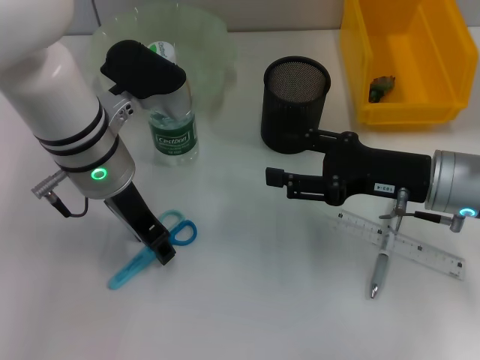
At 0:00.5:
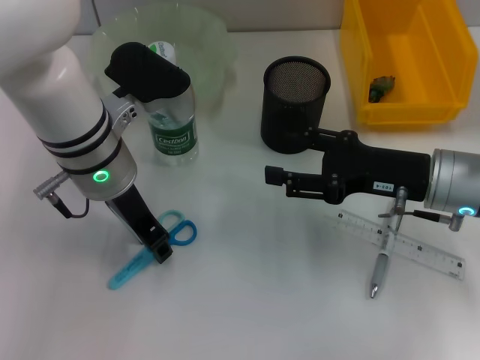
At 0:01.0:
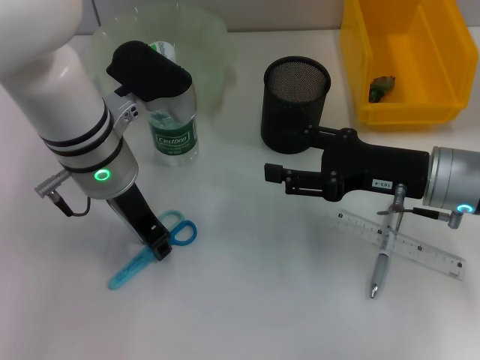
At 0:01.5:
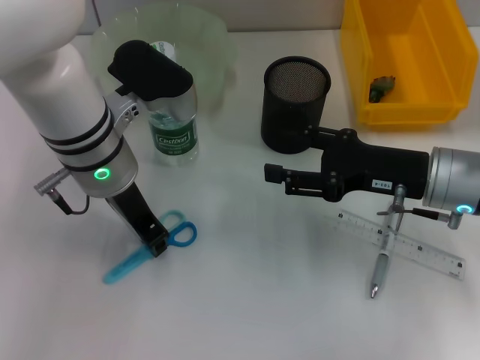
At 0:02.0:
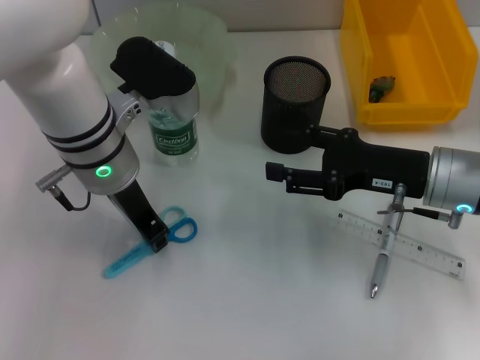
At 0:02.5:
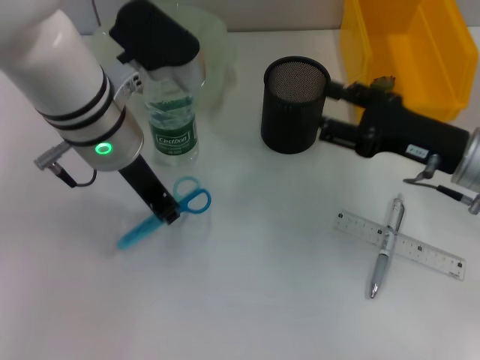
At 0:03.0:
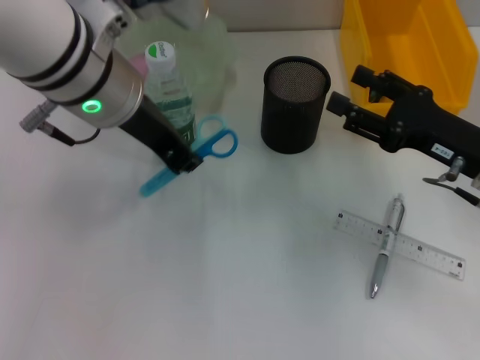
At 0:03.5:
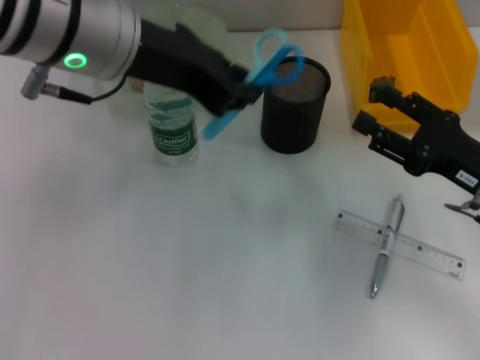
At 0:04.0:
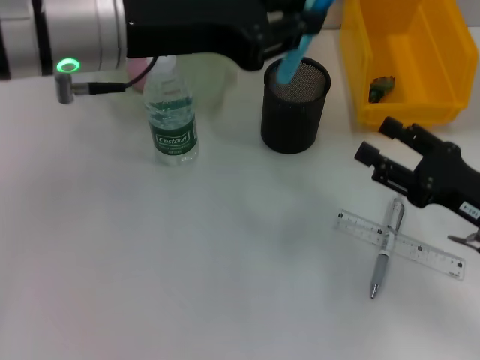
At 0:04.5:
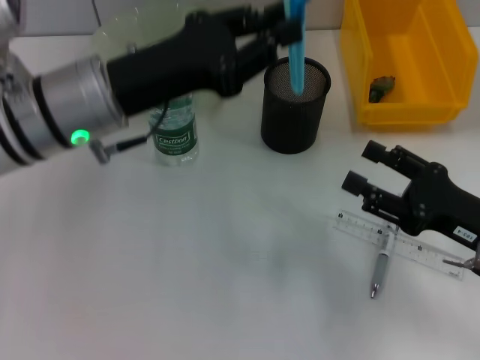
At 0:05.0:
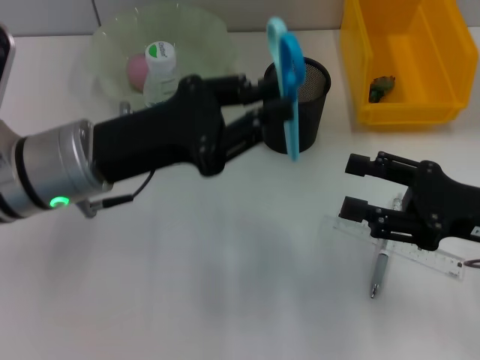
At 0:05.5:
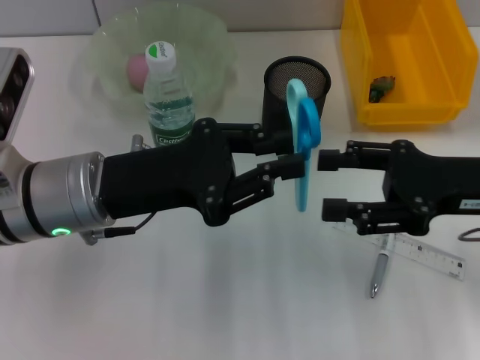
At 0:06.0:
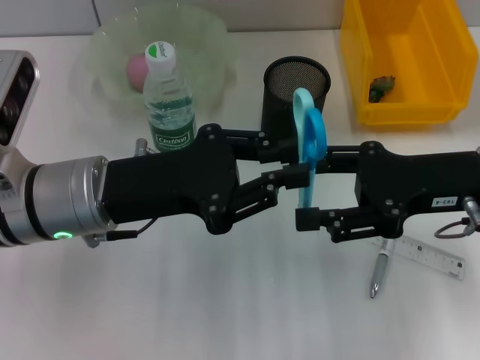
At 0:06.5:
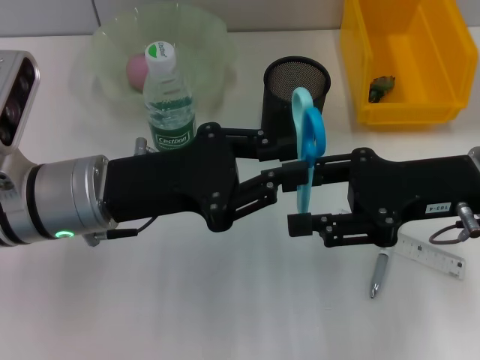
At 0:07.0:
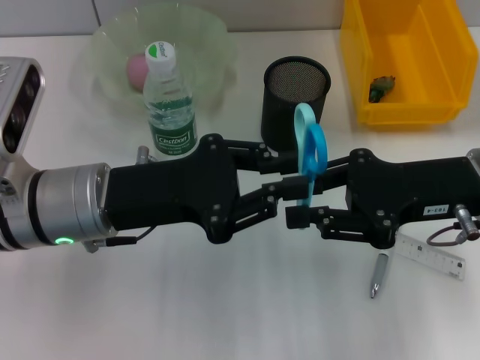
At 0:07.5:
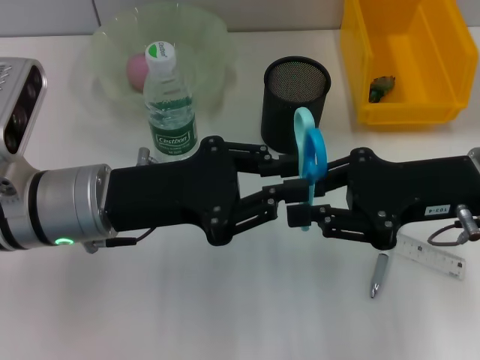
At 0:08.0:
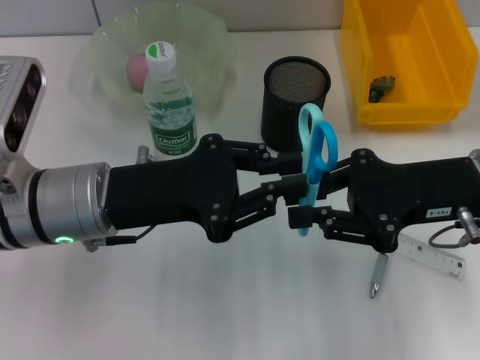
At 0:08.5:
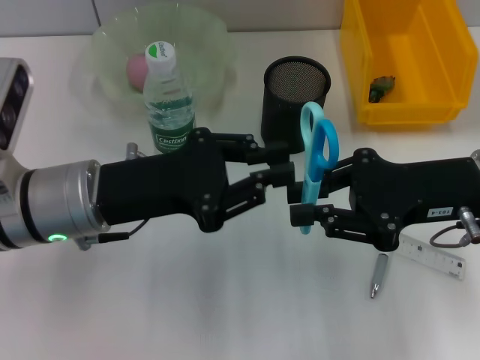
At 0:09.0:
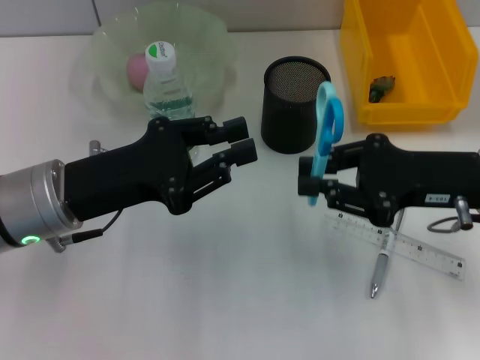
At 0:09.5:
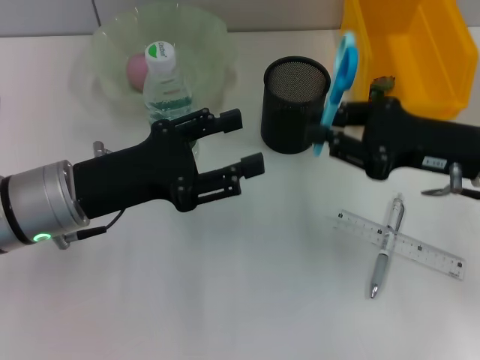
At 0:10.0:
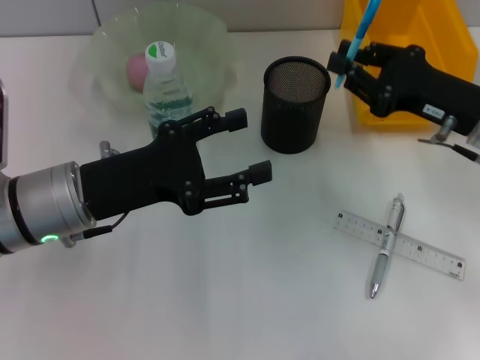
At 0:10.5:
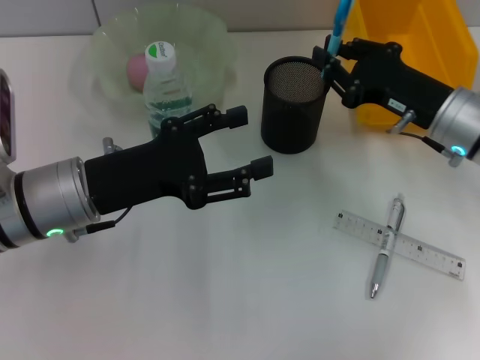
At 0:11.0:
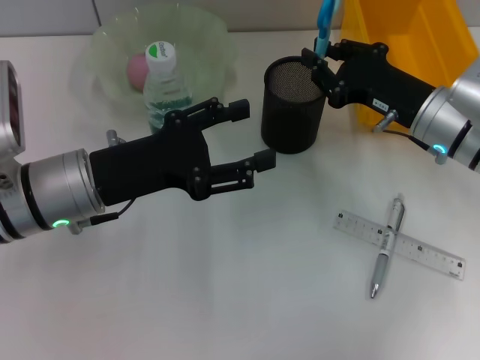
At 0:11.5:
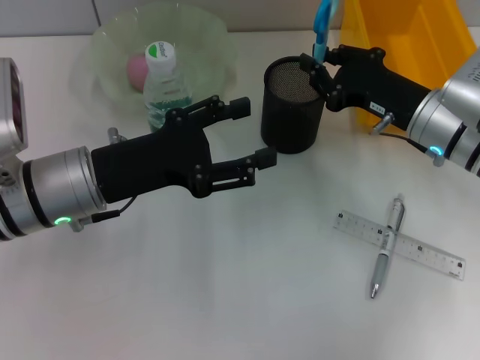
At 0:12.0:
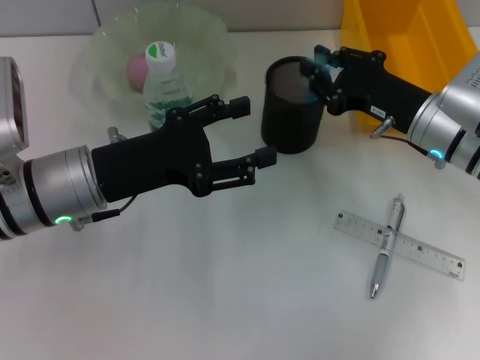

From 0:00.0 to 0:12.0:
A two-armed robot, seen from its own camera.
Step, from 0:02.0 to 0:08.0: Pass the blue scissors from the left hand to the right hand.
From 0:00.0 to 0:02.0: The left gripper closes.
From 0:02.0 to 0:04.0: The right gripper travels backward and to the right by approximately 10 cm. Meanwhile the left gripper heads upward, covering some 10 cm.
From 0:04.0 to 0:06.0: The right gripper travels upward by some 10 cm, while the left gripper goes some 15 cm downward.
From 0:06.0 to 0:08.0: The right gripper closes.
From 0:08.0 to 0:10.0: The right gripper moves approximately 5 cm. Meanwhile the left gripper opens up.
From 0:10.0 to 0:12.0: The right gripper ends up some 5 cm from where it was.

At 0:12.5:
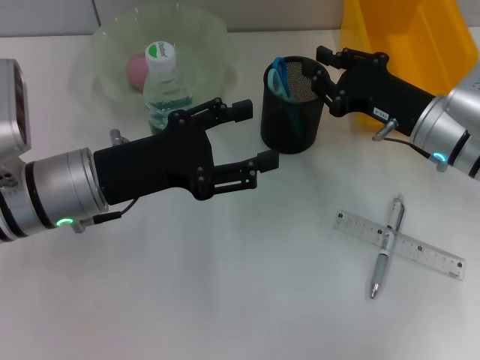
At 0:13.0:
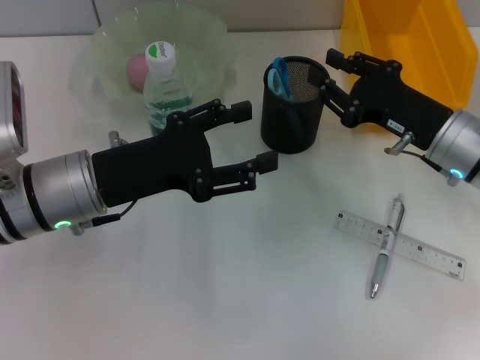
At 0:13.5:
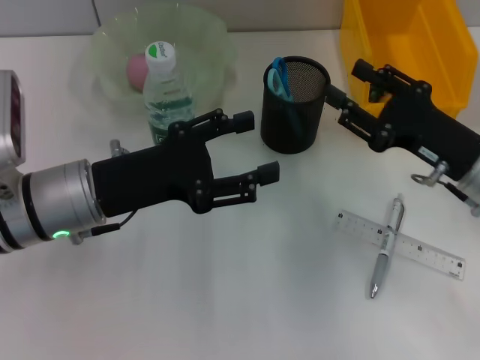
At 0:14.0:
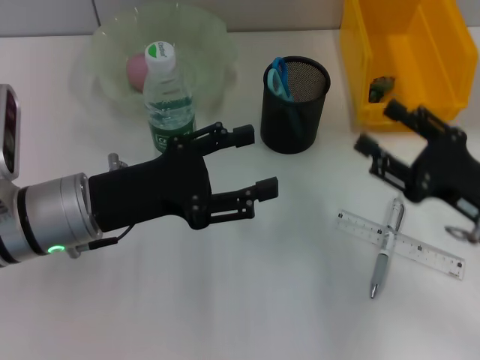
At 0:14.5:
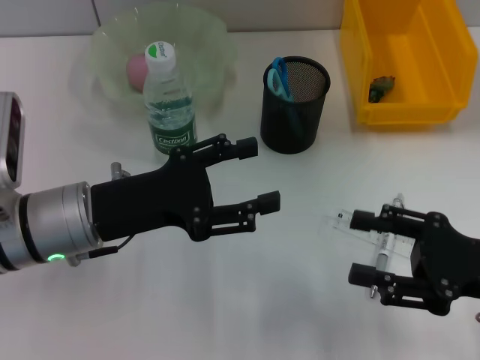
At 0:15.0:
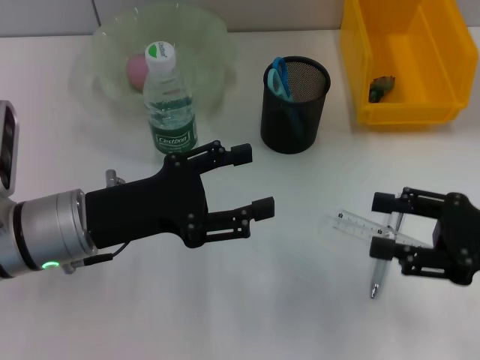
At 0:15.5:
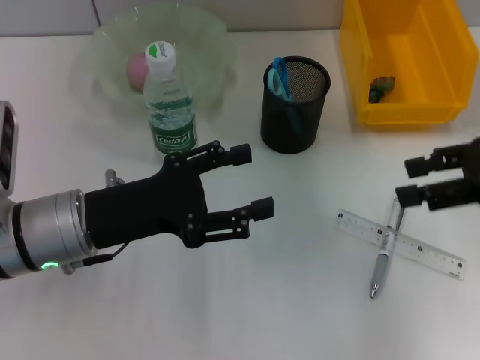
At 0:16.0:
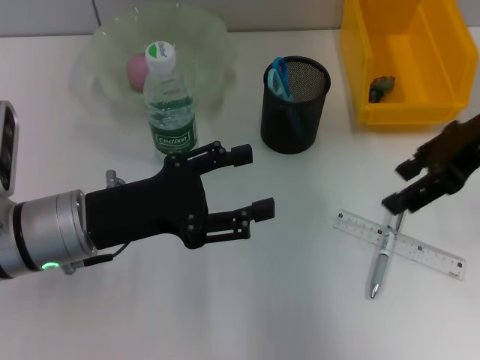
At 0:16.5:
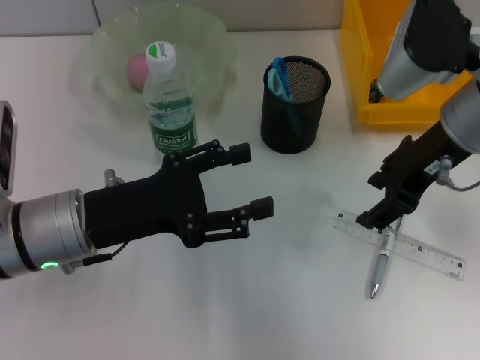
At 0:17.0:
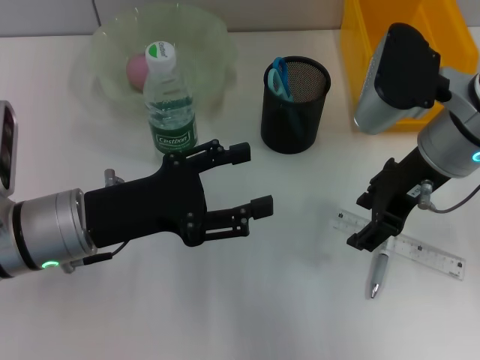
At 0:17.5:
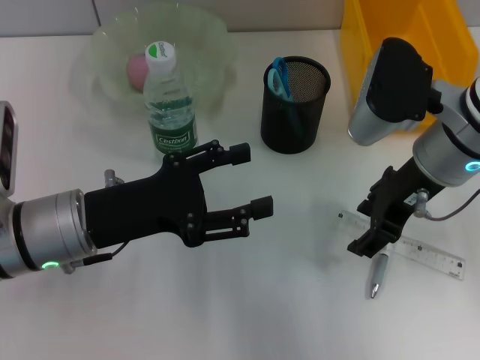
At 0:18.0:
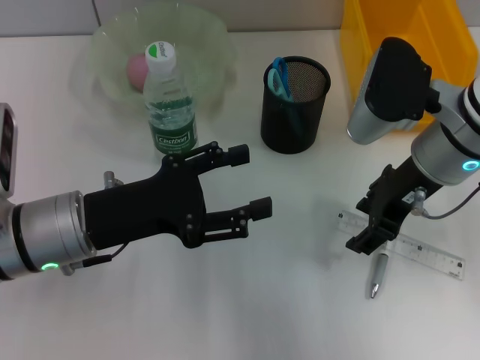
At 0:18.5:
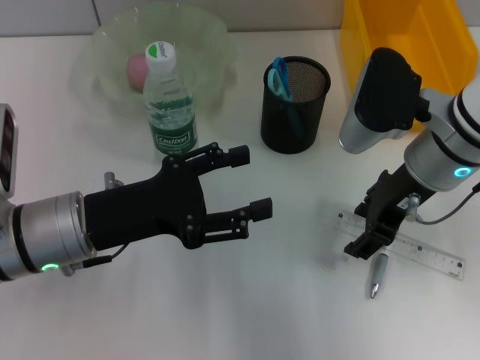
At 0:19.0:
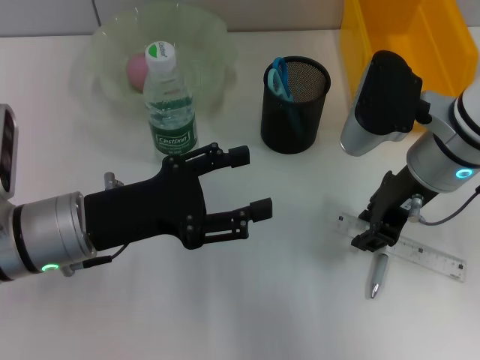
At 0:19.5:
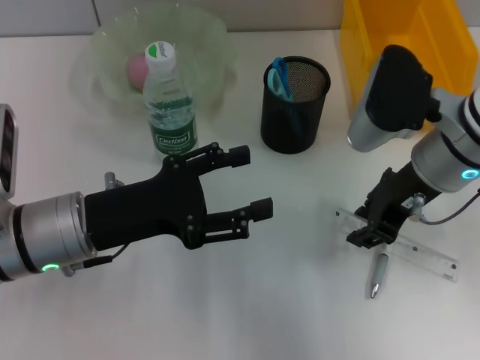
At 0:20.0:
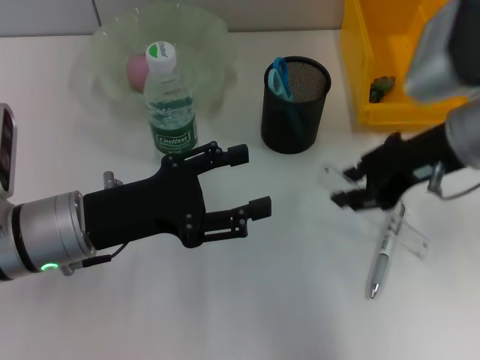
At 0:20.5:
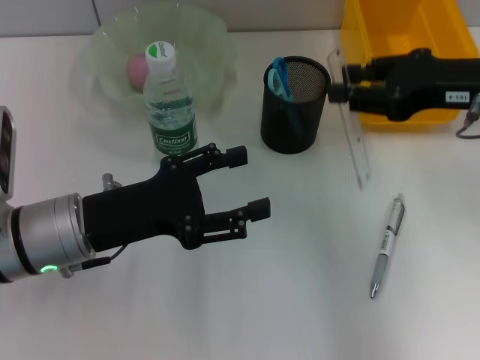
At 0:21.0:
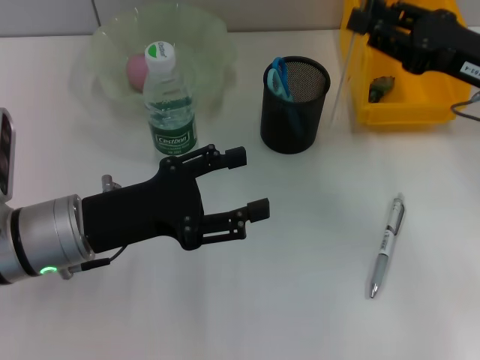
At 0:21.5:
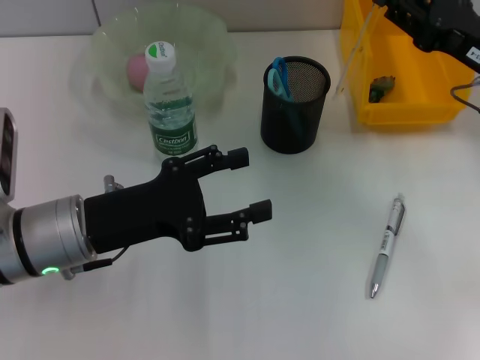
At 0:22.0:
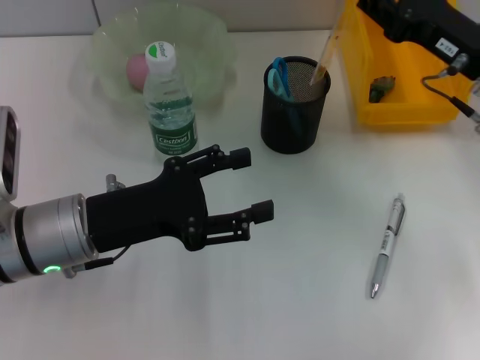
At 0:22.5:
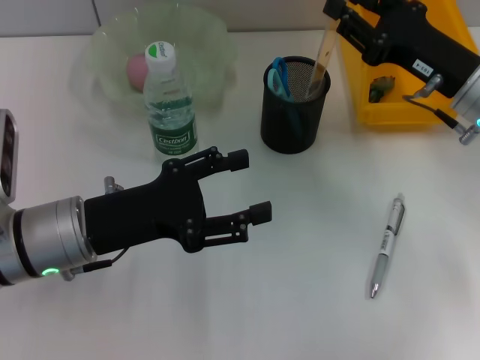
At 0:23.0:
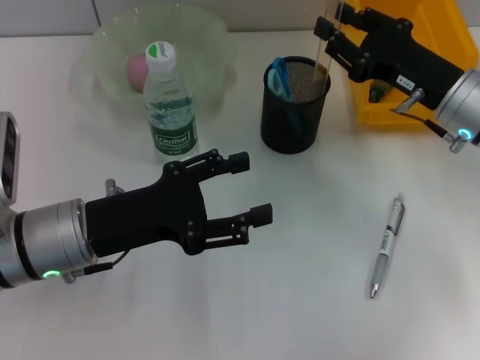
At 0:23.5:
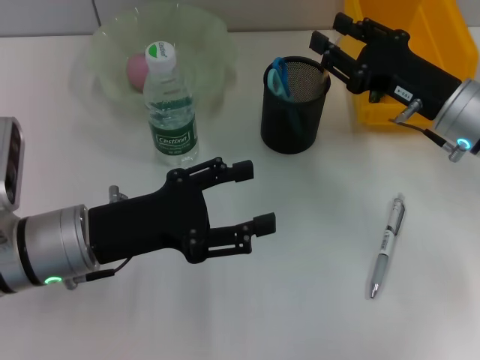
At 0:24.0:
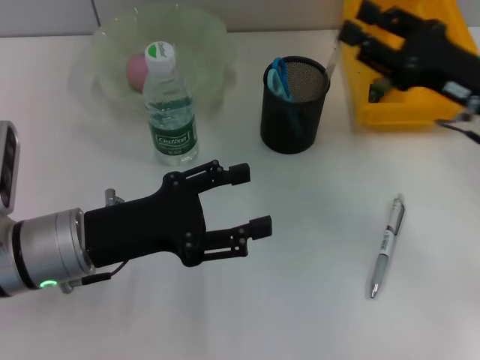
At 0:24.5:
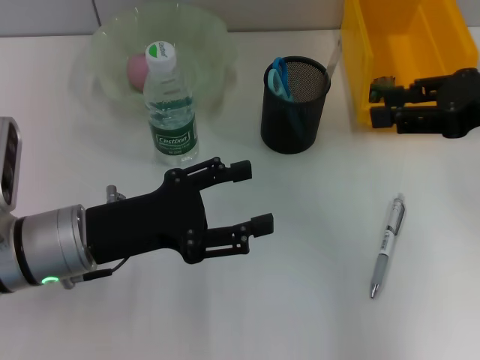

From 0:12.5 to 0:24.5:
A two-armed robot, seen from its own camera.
Step, from 0:12.5 to 0:19.0: Grab the ruler with the right hand.
Step, from 0:19.5 to 0:23.5: Place the ruler into the pen holder with the right hand.
From 0:12.5 to 0:14.5: The right gripper heads backward and to the right, covering approximately 15 cm, and opens its fingers.
From 0:14.5 to 0:16.5: The right gripper shifts roughly 20 cm forward, upward and to the left.
From 0:16.5 to 0:18.5: The right gripper changes place by some 5 cm.
From 0:18.5 to 0:20.5: The right gripper moves to the right and upward, approximately 10 cm, and closes.
From 0:20.5 to 0:22.5: The right gripper moves downward, approximately 10 cm.
From 0:22.5 to 0:24.5: The right gripper goes some 10 cm upward.

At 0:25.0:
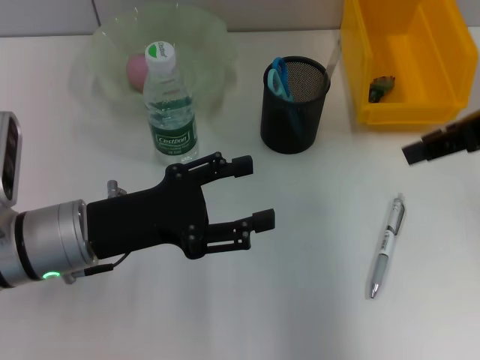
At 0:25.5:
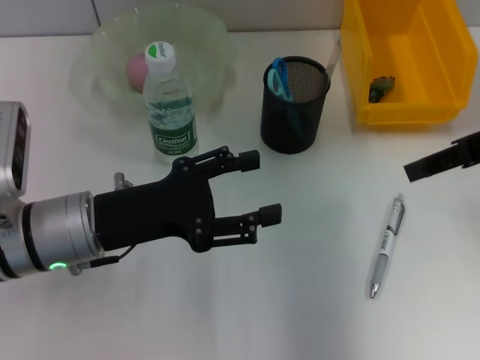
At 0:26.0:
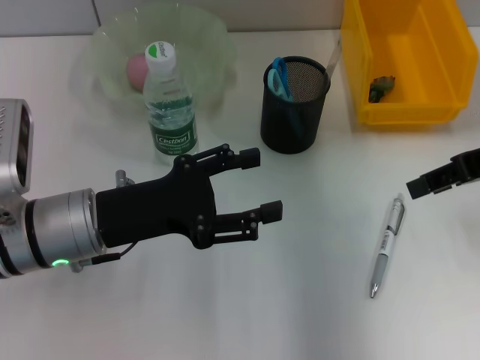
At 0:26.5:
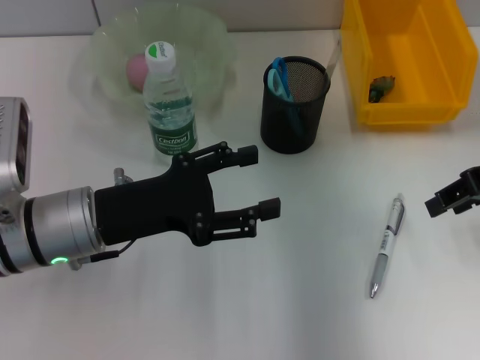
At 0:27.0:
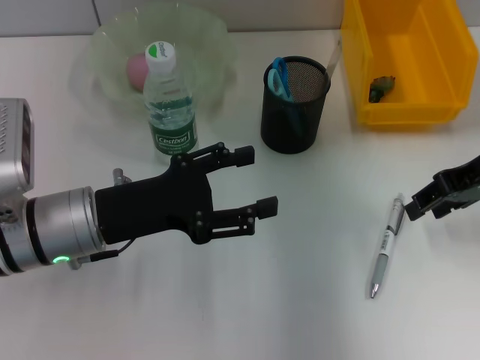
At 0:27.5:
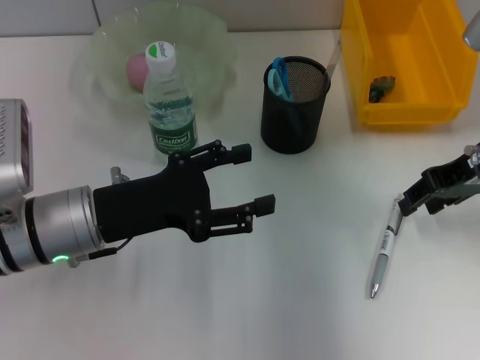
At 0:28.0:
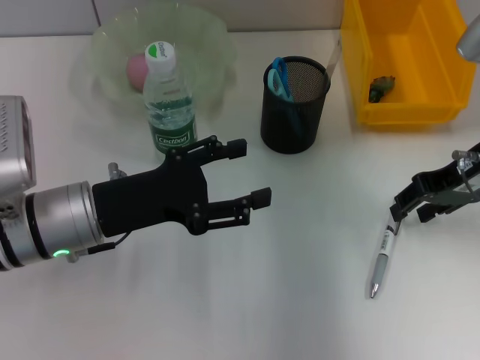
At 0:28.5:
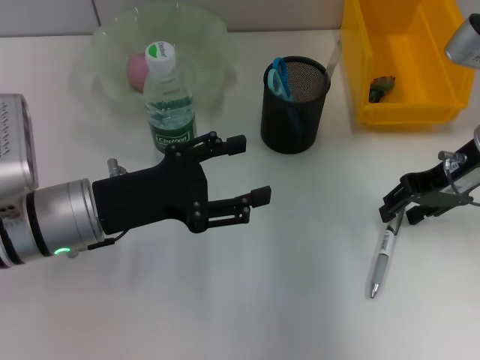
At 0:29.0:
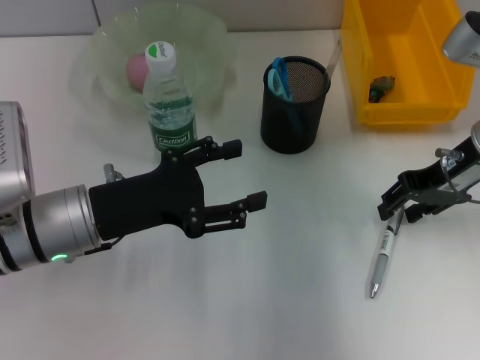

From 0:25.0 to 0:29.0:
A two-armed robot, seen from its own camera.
From 0:25.0 to 0:27.0: The right gripper travels downward by approximately 10 cm.
From 0:27.0 to 0:29.0: The grippers stay close to where they were, moving slightly.
